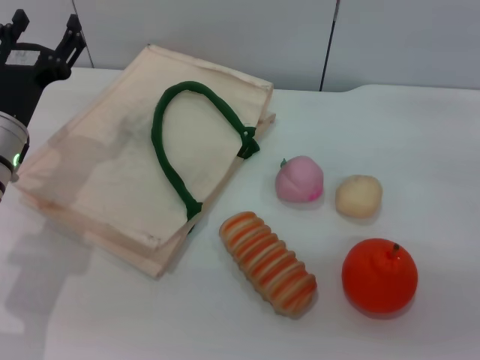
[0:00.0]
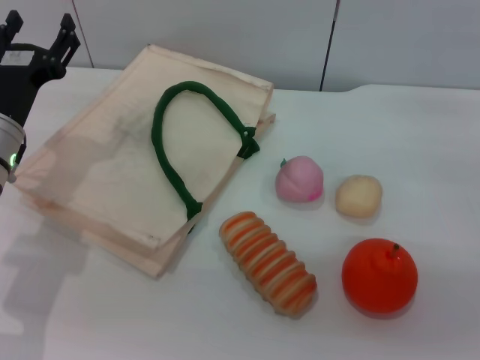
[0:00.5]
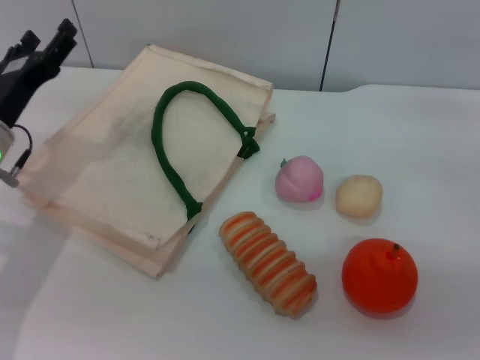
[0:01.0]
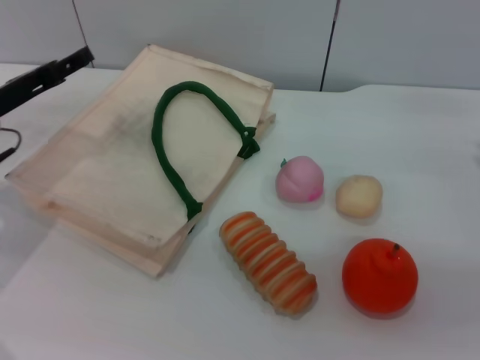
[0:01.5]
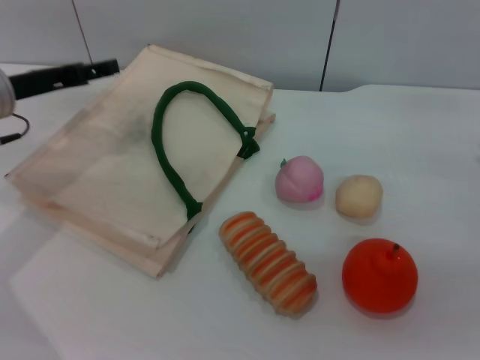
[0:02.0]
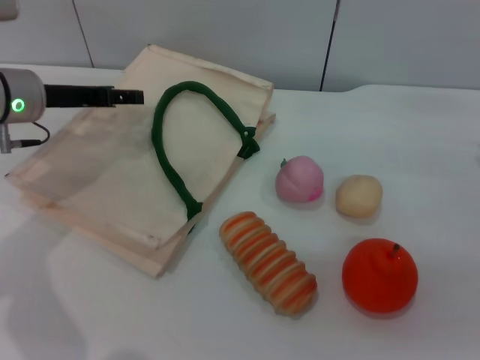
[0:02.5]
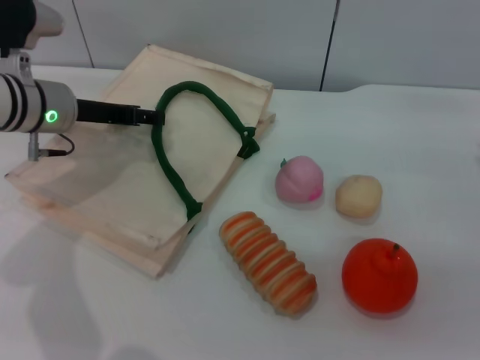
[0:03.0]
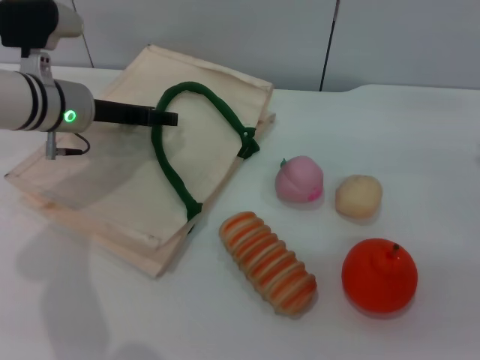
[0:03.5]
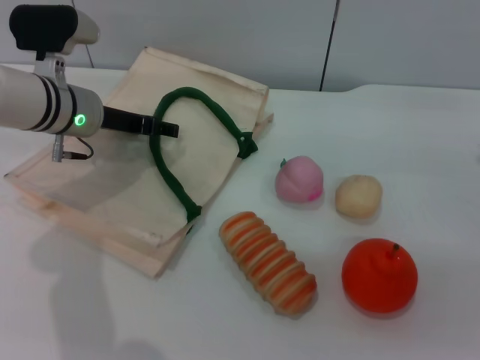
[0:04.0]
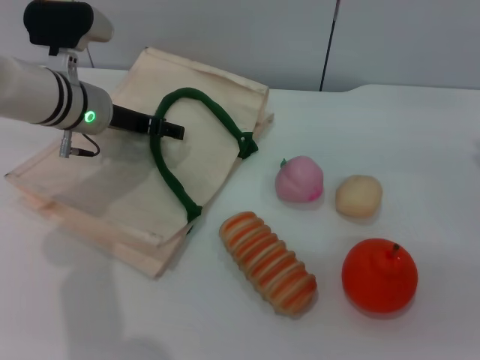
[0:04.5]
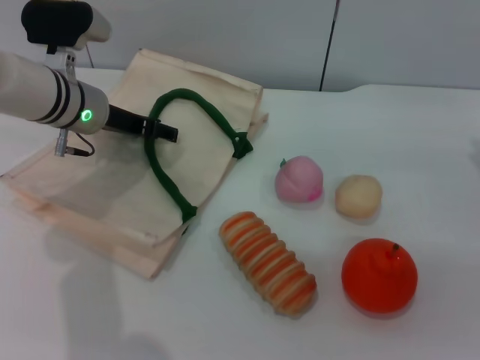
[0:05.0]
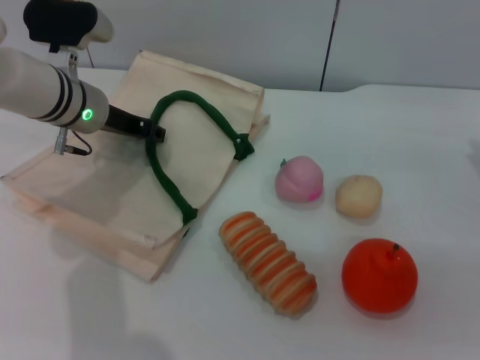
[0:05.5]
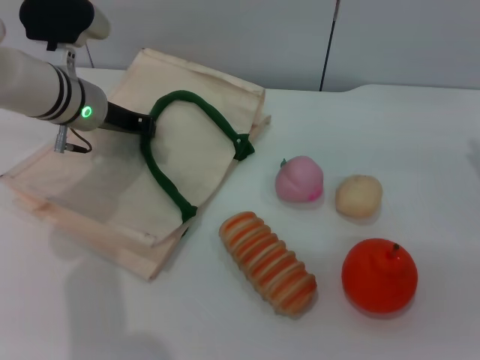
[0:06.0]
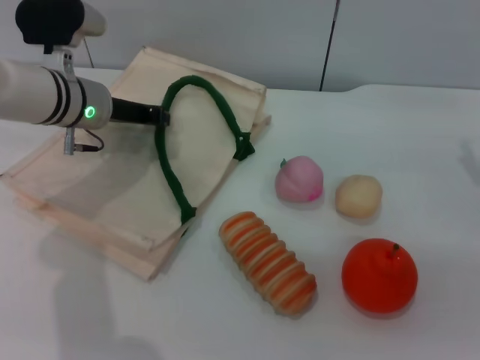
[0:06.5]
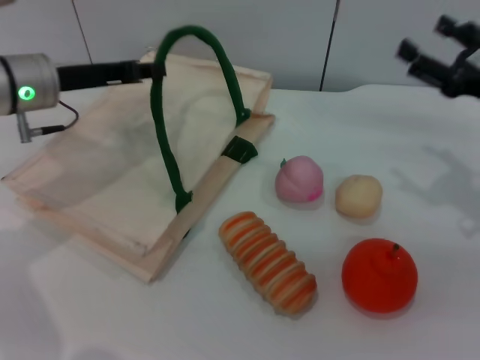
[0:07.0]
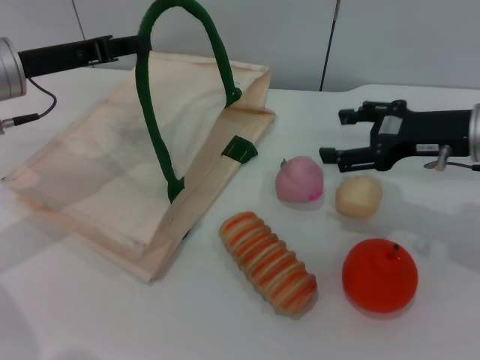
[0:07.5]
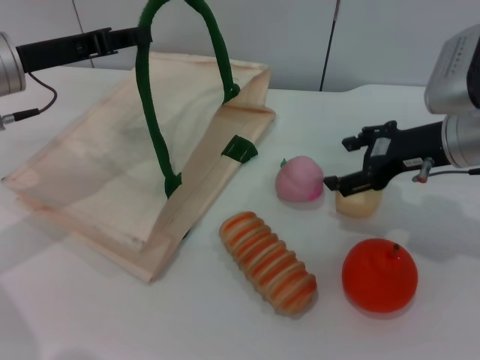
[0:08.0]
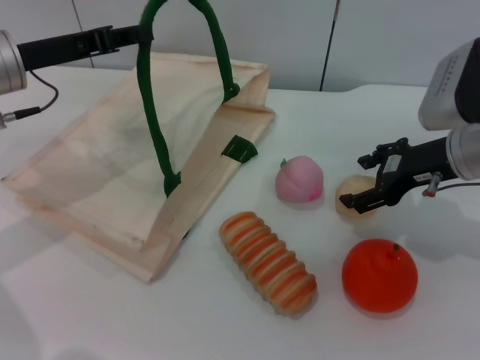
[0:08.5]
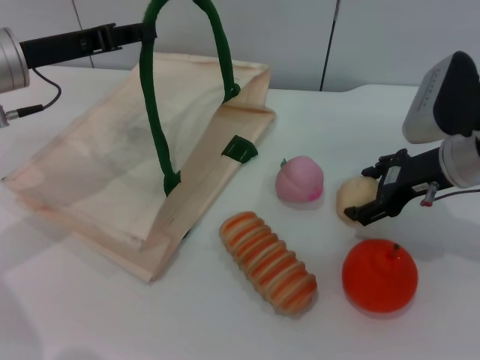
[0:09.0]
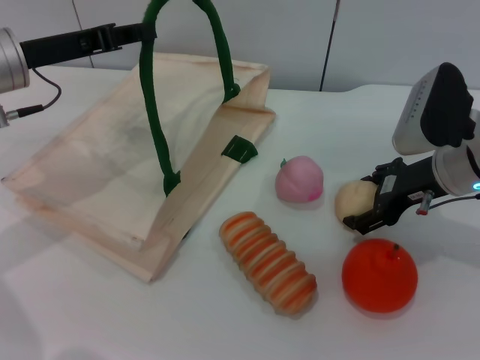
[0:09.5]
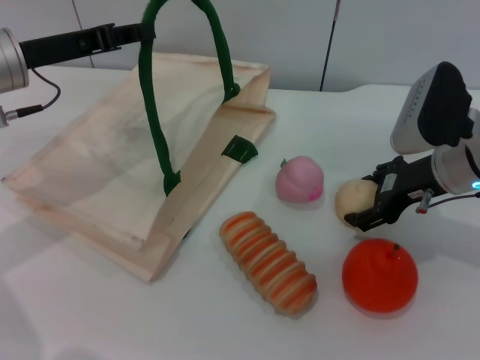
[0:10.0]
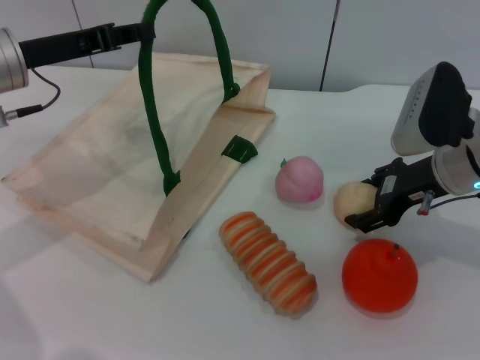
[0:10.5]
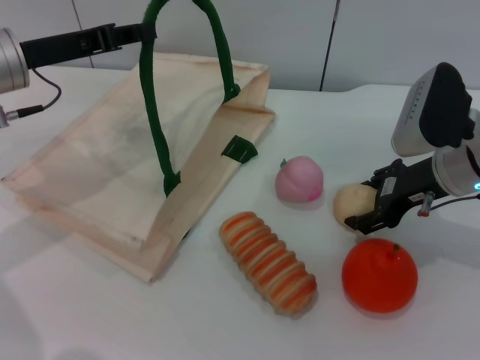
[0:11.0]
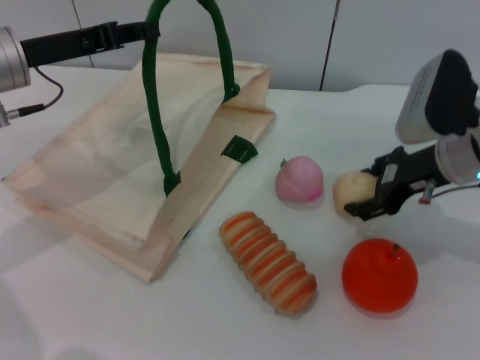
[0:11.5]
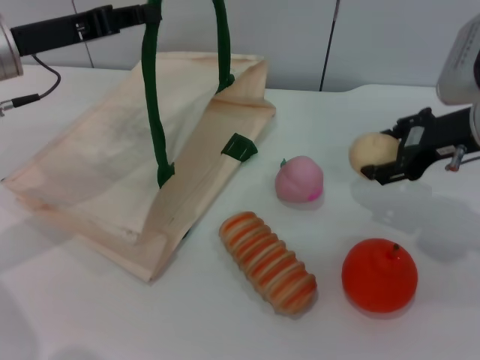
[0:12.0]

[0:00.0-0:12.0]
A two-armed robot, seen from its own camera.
Task of the whole recording: pick up the egg yolk pastry from the table and place it in the white handbag.
Step, 0:00.0 to 0:06.5: Lift the woven bag with the left gripper to open it.
Step, 0:07.0 to 0:11.5: Pick up the egg yolk pastry with the right gripper.
0:00.0 to 0:02.0: The left gripper goes approximately 5 cm upward.
0:02.0 to 0:04.0: The left gripper is displaced to the right by approximately 10 cm.
0:04.0 to 0:06.0: The left gripper closes up.
0:06.0 to 0:08.0: The right gripper shifts some 10 cm to the left. The left gripper moves to the left, backward and upward, roughly 10 cm.
0:08.0 to 0:10.0: The grippers stay close to where they were, moving slightly.
0:10.0 to 0:12.0: The right gripper heads upward, covering some 5 cm, and closes its fingers.

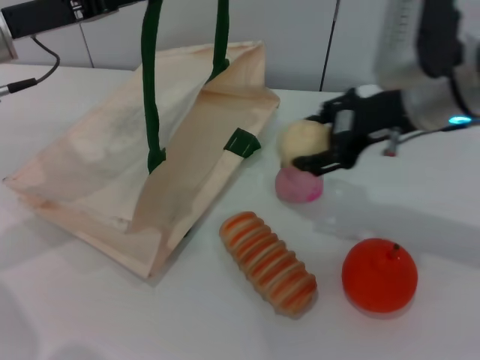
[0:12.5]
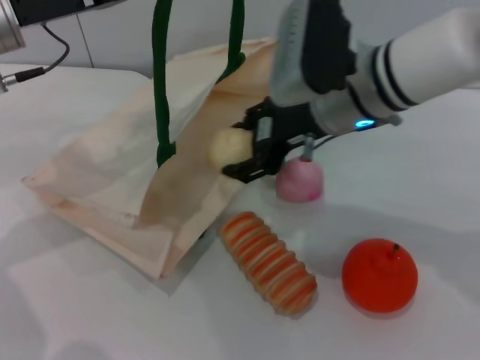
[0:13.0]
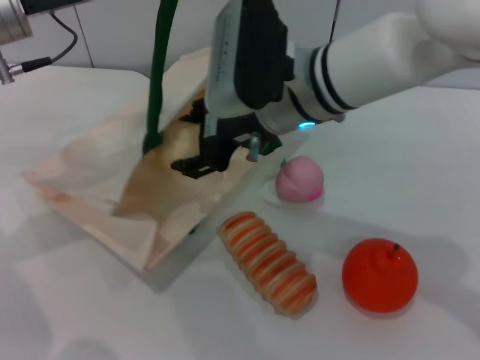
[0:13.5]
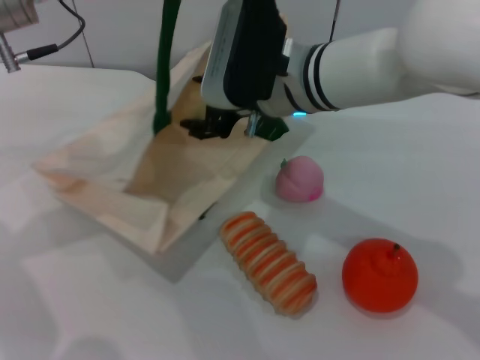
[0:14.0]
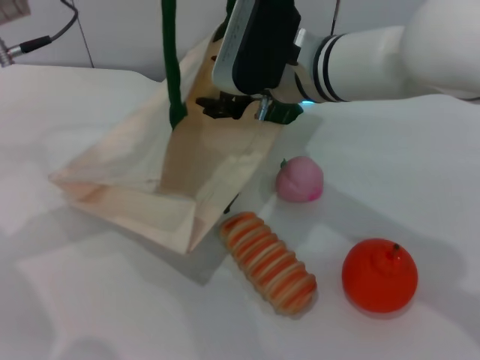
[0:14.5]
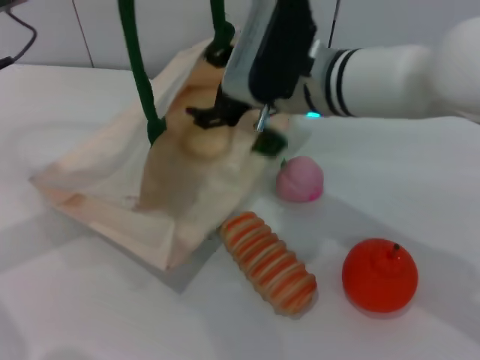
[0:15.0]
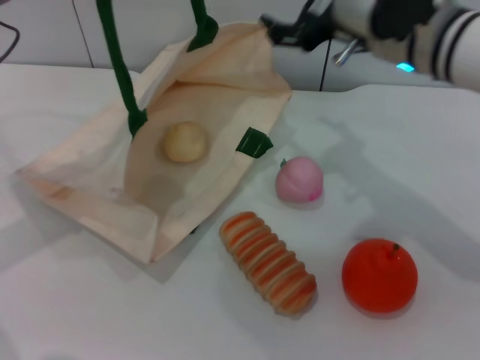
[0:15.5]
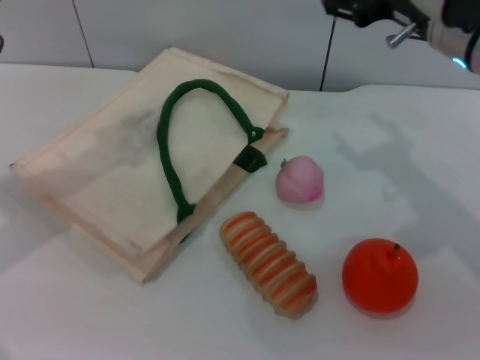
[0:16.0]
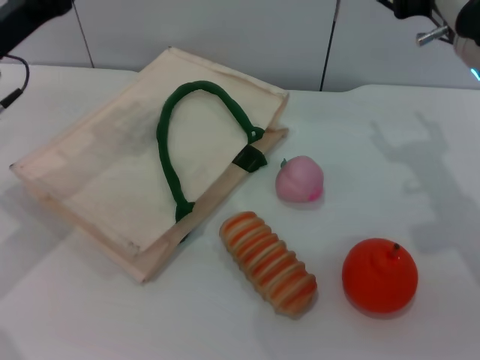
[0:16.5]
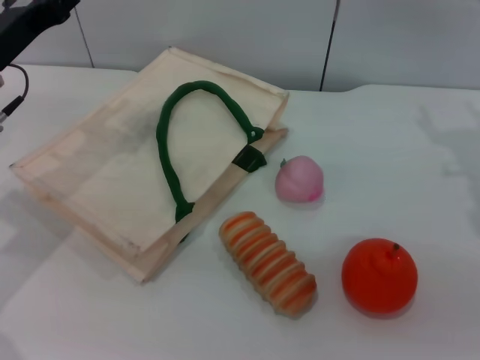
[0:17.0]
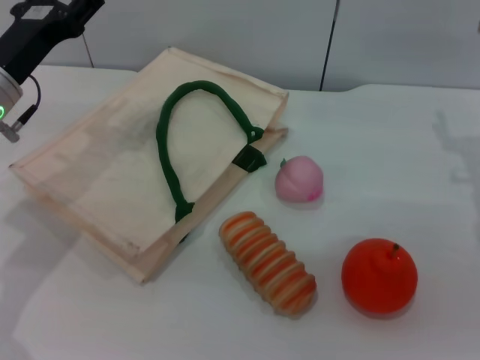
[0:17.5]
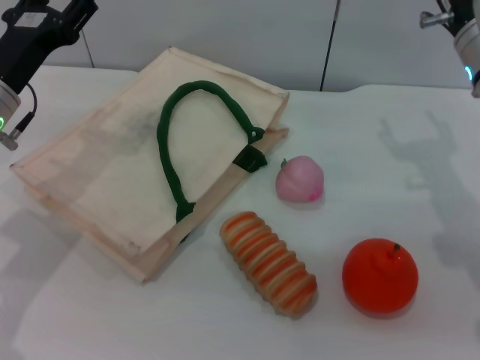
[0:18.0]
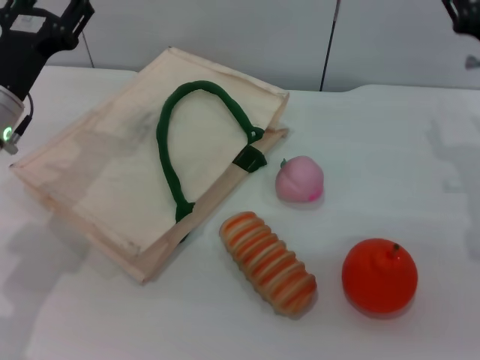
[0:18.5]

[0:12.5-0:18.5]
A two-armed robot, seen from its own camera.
Task of the whole recording: pick up the egg yolk pastry from the table and place it in the white handbag.
Step, 0:12.5 to 0:15.0: Place the egg yolk pastry into the woven bag with the right gripper.
Step, 0:15.5 to 0:16.0: Lower the woven bag with the left gripper to close it.
0:12.5 to 0:14.5: The right gripper travels to the left by about 10 cm.
0:14.5 to 0:16.5: The right gripper goes about 15 cm to the right, and opens its fingers. Meanwhile the left gripper moves downward, roughly 10 cm, and opens up.
0:16.5 to 0:18.5: The left gripper moves roughly 5 cm, while the right gripper travels downward by approximately 5 cm, and closes.

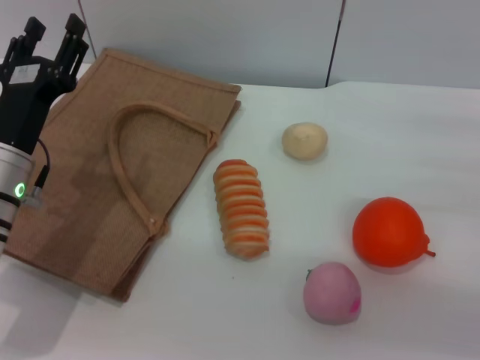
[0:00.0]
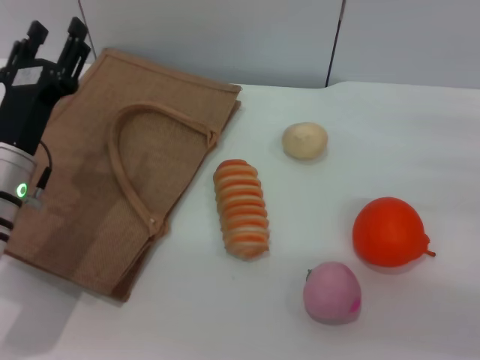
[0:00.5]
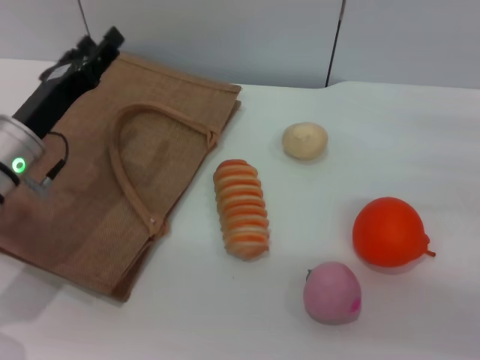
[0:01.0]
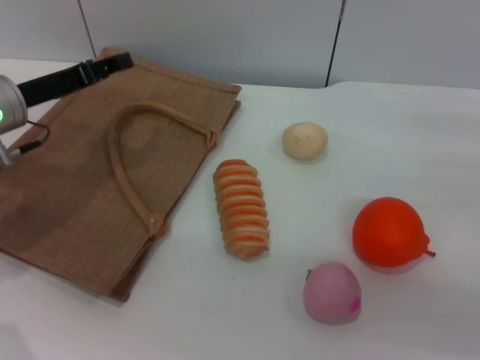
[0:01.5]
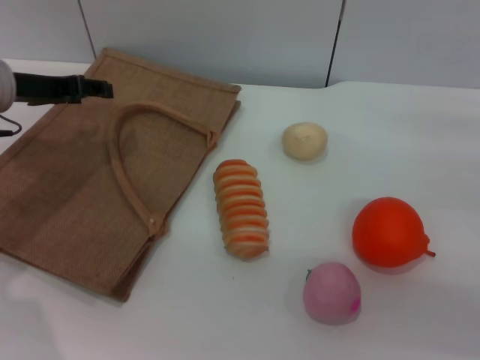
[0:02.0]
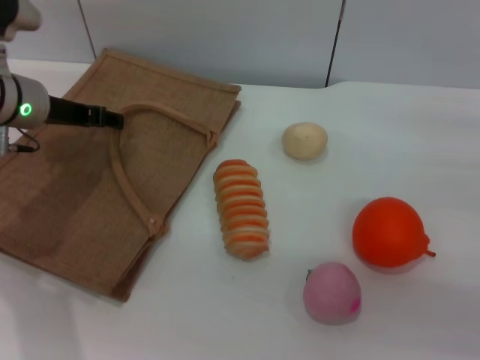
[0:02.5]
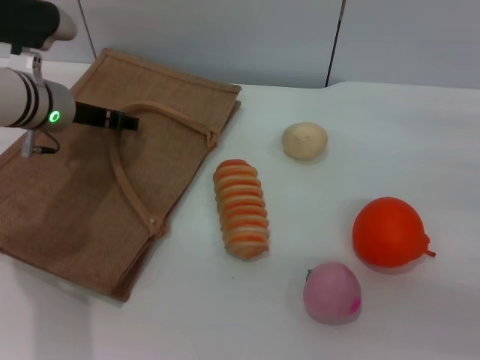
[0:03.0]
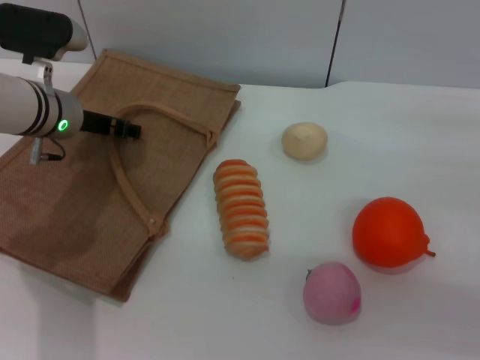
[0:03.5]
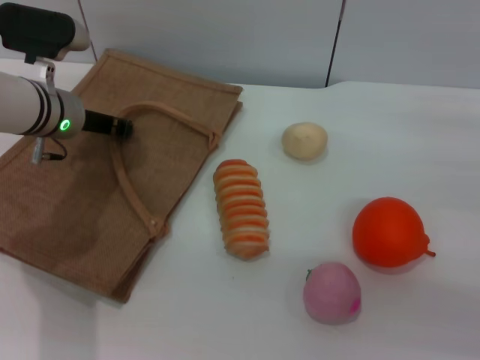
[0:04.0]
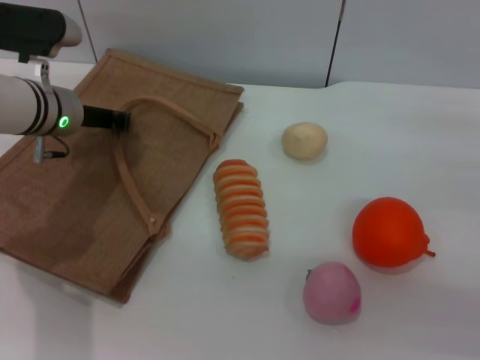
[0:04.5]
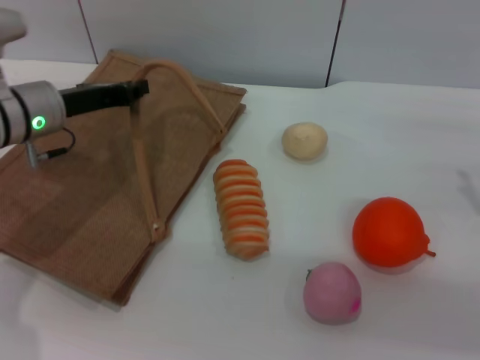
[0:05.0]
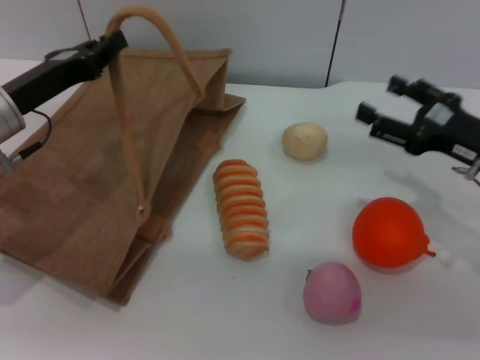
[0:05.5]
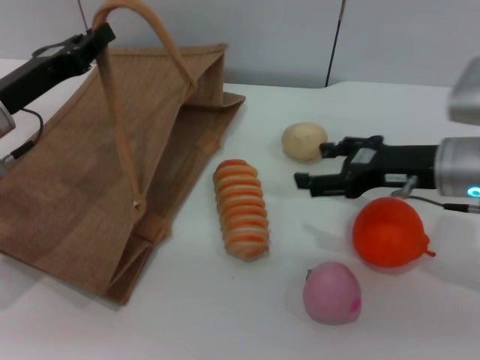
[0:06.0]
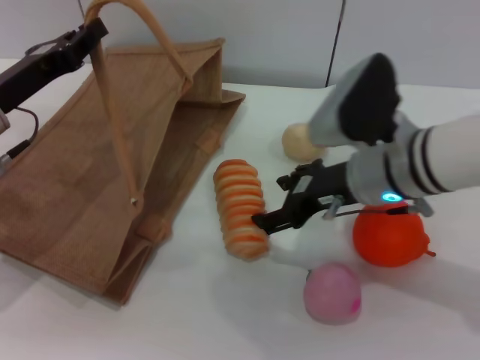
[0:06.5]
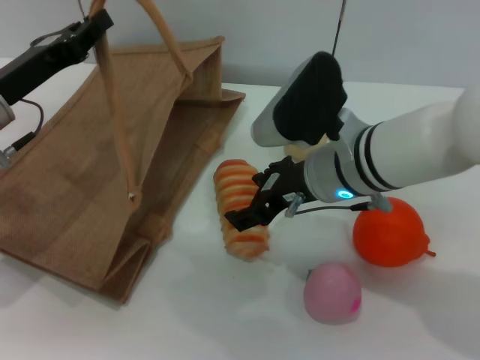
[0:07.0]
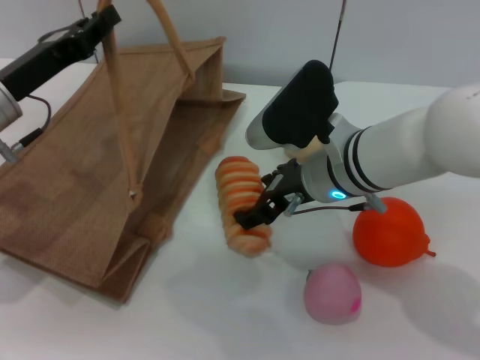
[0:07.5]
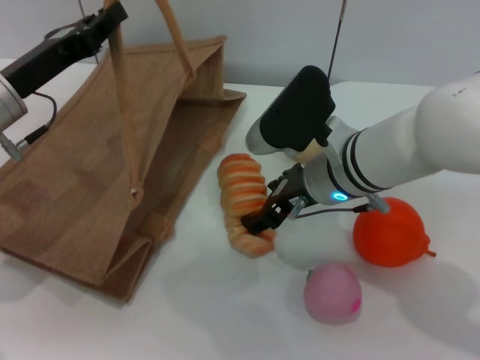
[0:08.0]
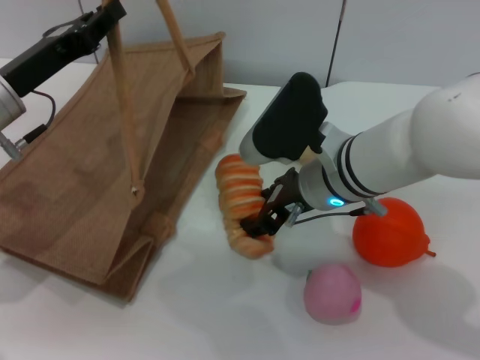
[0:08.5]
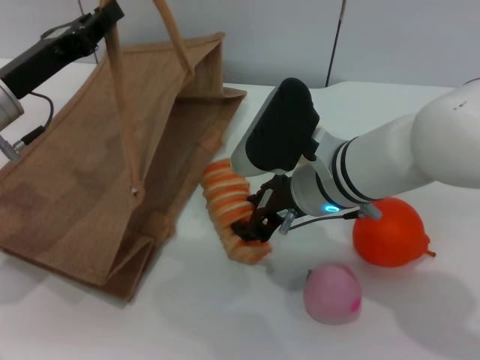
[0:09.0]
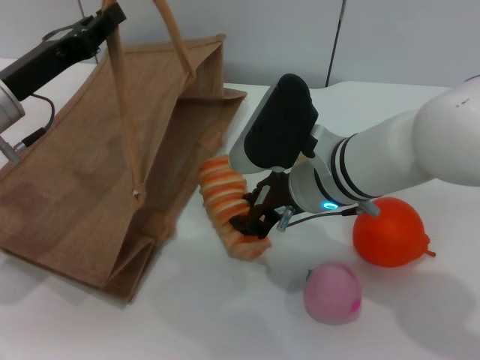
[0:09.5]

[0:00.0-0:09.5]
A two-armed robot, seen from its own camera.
Task of the whole recording: pick up the bread and egg yolk pastry from the table and place it in the brown handbag.
Step, 0:00.0 to 0:05.0: Lift the woven bag with the left gripper to open it.
0:00.0 to 0:02.0: The left gripper is displaced forward, upward and to the left by about 15 cm.
0:02.0 to 0:04.0: The left gripper goes approximately 5 cm to the right, and closes its fingers.
0:04.0 to 0:05.5: The left gripper is displaced backward by some 10 cm, and closes its fingers. The right gripper is displaced to the left by approximately 5 cm.
0:05.5 to 0:07.5: The right gripper travels to the left by some 20 cm.
0:07.5 to 0:09.5: The right gripper closes its fingers.
